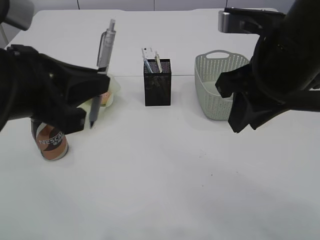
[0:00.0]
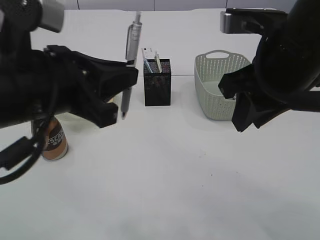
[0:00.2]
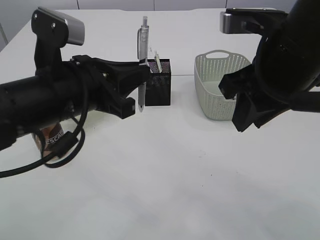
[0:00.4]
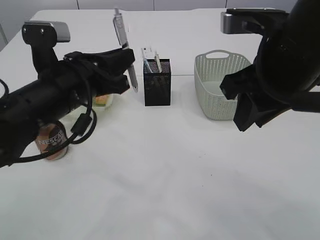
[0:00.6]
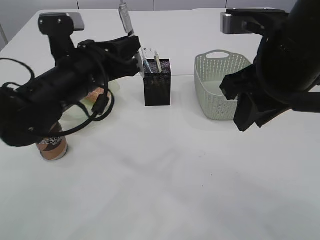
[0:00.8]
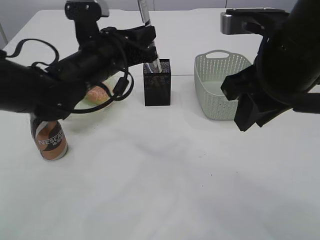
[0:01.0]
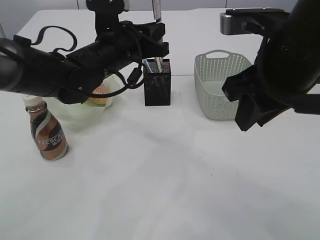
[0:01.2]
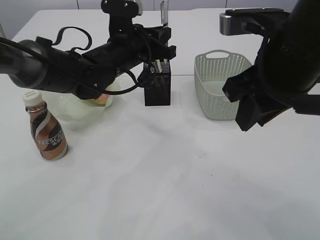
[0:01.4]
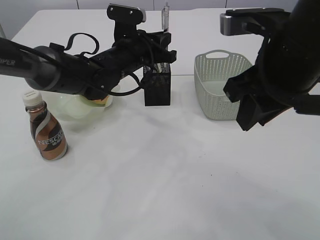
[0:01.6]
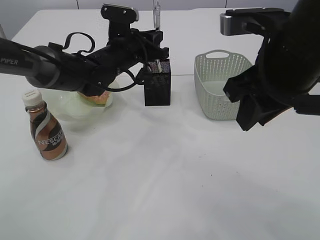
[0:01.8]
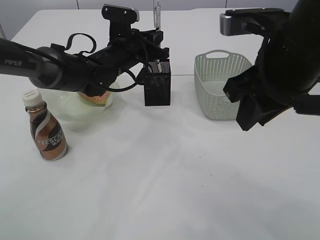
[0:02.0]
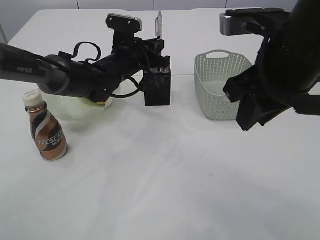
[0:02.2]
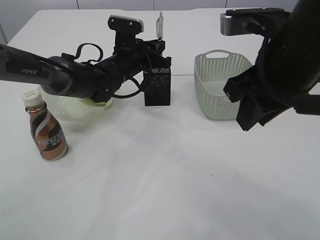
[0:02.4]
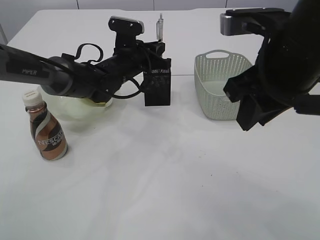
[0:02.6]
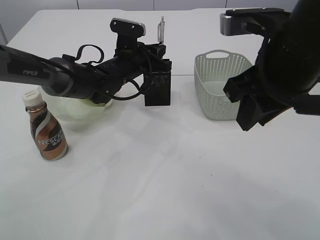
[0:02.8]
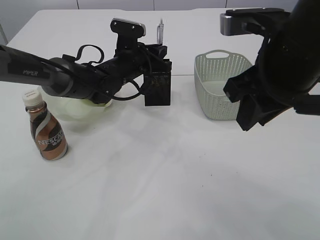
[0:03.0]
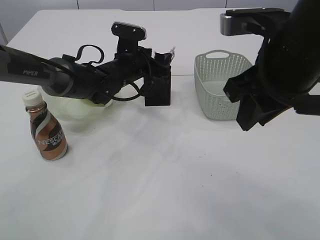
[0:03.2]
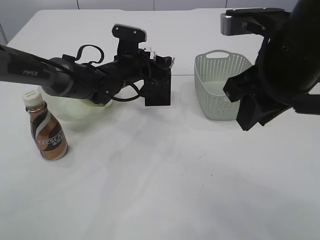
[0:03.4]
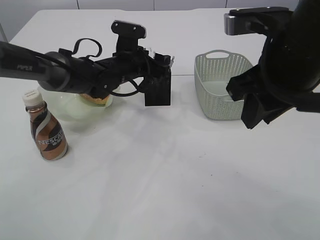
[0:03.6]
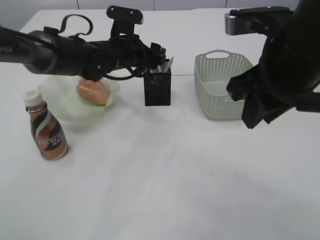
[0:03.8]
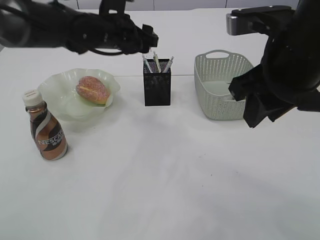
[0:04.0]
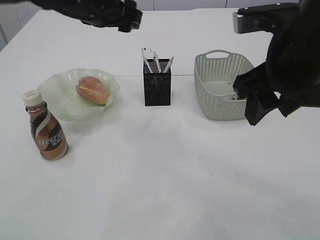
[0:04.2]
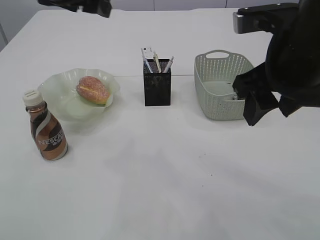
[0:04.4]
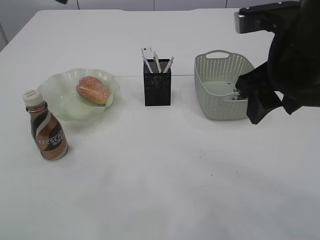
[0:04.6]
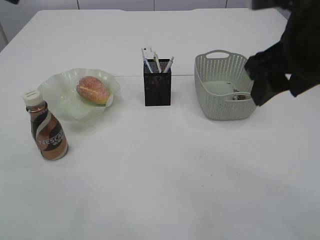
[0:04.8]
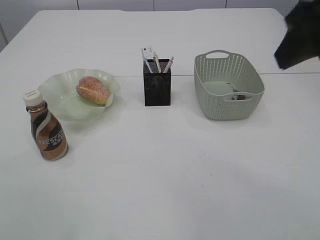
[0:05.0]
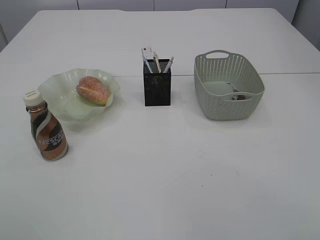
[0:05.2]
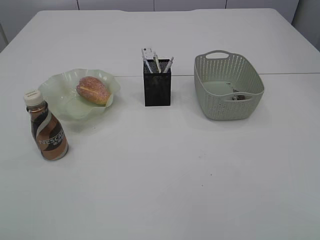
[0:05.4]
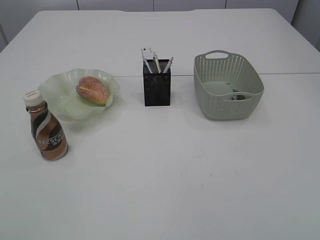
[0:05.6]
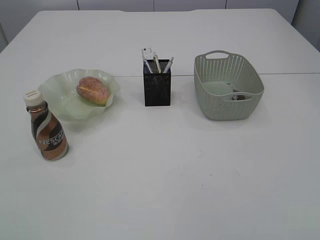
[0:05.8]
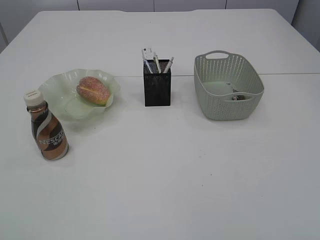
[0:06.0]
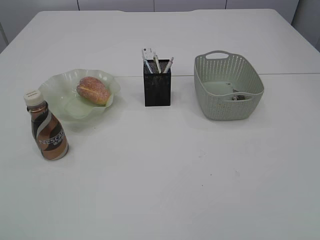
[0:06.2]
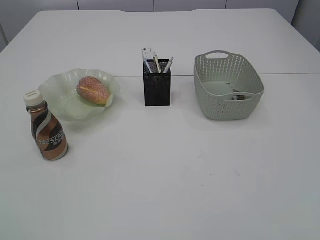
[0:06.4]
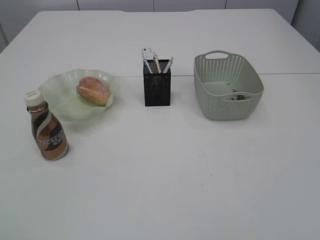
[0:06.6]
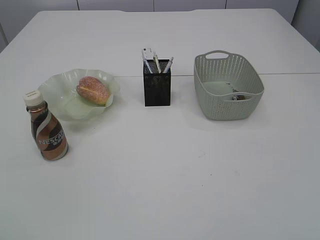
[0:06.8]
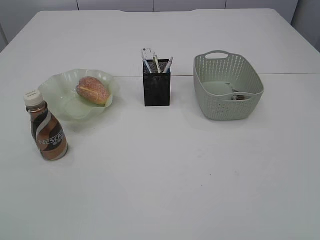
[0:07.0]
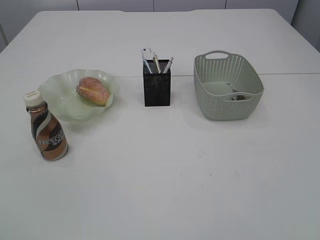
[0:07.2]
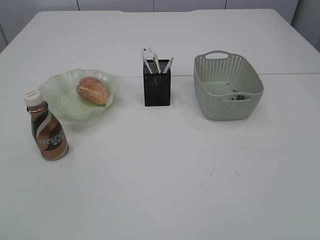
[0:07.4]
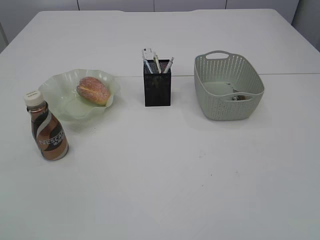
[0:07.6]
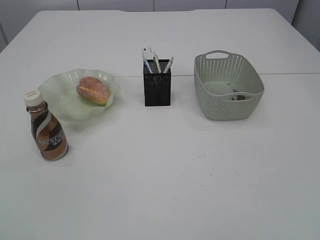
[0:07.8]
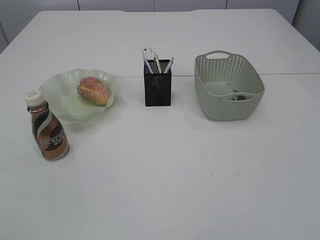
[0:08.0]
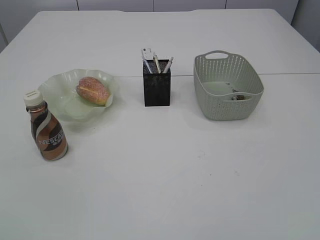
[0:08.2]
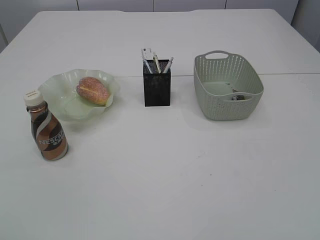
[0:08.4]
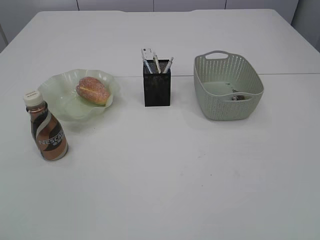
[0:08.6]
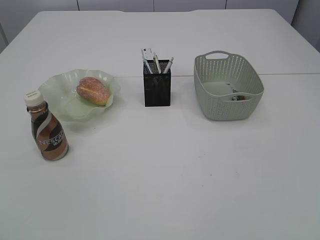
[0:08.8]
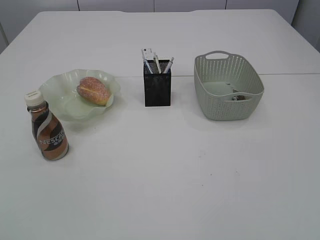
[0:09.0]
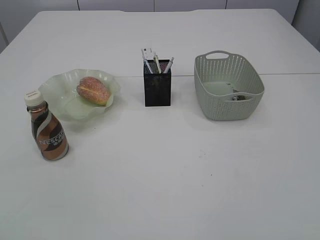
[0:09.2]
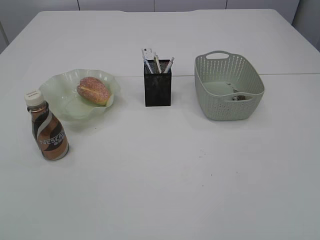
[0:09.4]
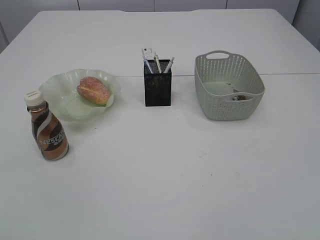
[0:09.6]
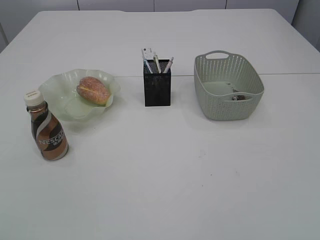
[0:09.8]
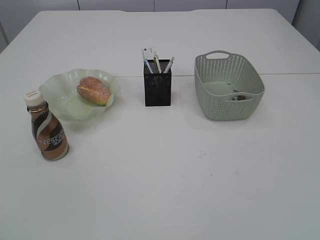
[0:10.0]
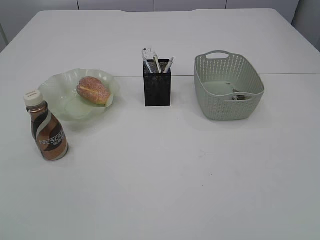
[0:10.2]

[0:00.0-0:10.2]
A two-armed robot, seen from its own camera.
Step, 0:00.0 to 0:04.2: Place the pen into the pen holder.
0:00.0 to 0:01.4: The left gripper travels forward by some 25 cm.
0:01.4 to 0:03.0: The left gripper shifts approximately 10 cm downward and forward.
0:03.0 to 0:04.4: The right gripper opens; the left gripper is displaced upward and backward by some 20 cm, and opens.
0:04.4 to 0:05.8: The right gripper shifts approximately 25 cm backward and to the right; the left gripper moves backward, to the left and upward, roughly 35 cm.
0:08.8 to 0:10.2: Neither gripper changes place.

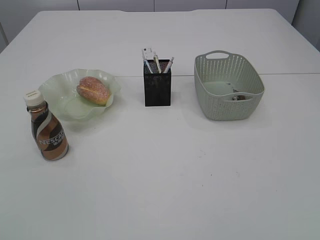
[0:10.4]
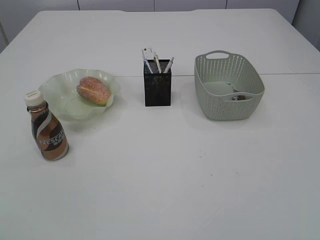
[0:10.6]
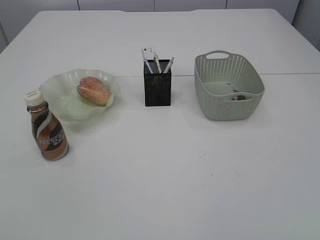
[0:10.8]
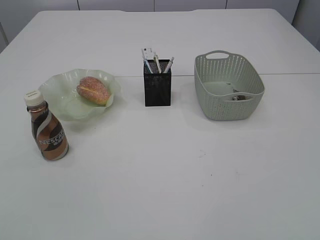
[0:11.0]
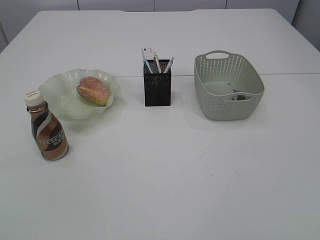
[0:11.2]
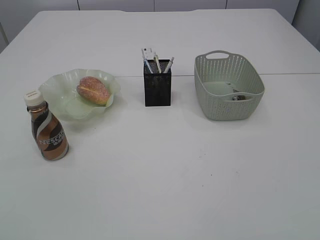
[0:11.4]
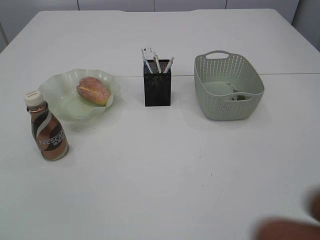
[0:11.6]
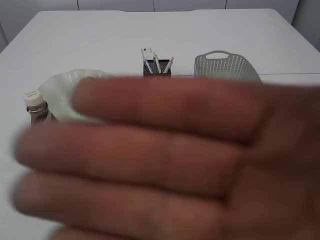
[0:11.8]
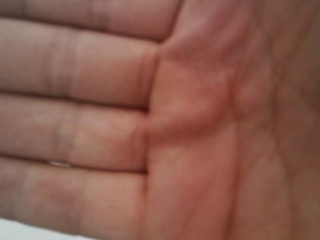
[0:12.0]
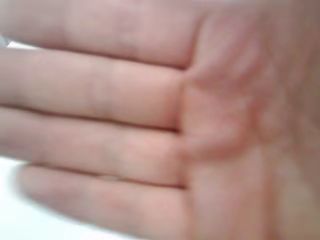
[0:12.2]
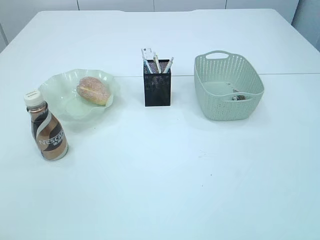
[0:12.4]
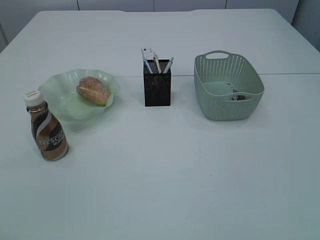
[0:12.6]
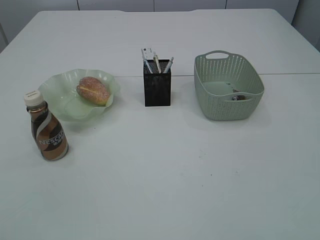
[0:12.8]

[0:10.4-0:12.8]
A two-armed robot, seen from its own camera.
0:10.4 to 0:12.8: Neither gripper changes place.

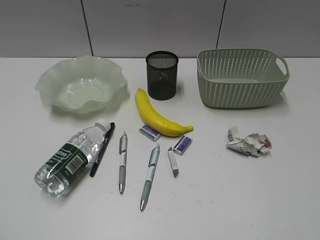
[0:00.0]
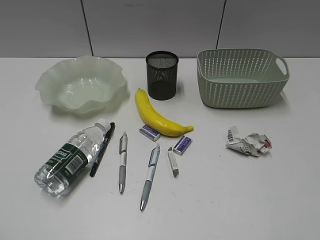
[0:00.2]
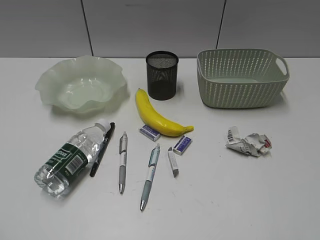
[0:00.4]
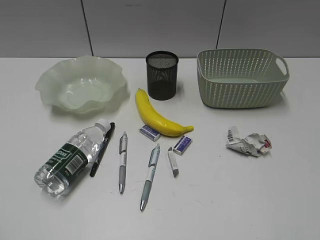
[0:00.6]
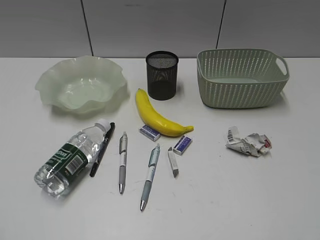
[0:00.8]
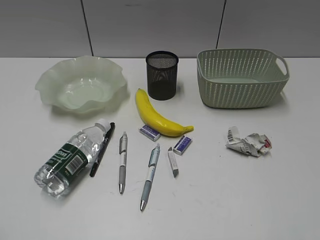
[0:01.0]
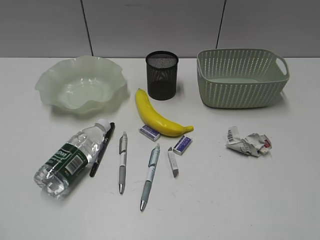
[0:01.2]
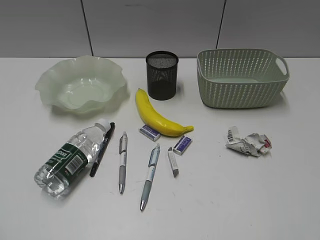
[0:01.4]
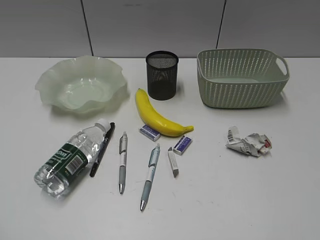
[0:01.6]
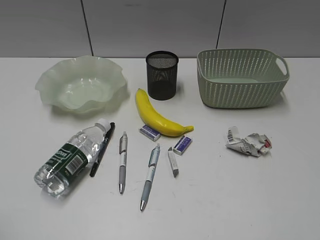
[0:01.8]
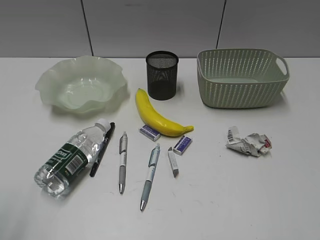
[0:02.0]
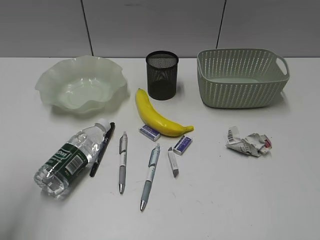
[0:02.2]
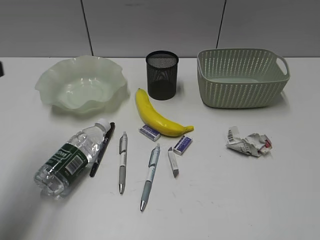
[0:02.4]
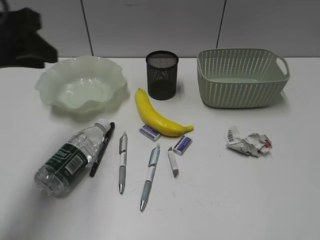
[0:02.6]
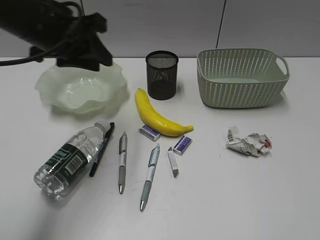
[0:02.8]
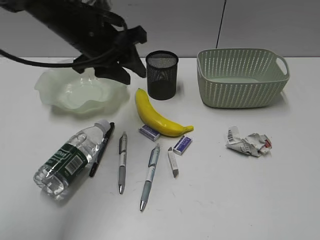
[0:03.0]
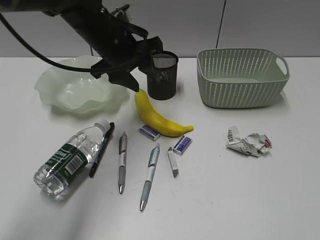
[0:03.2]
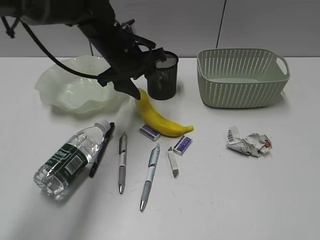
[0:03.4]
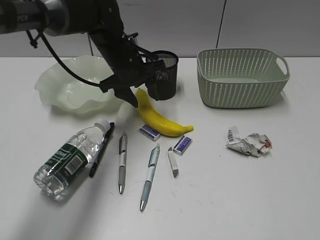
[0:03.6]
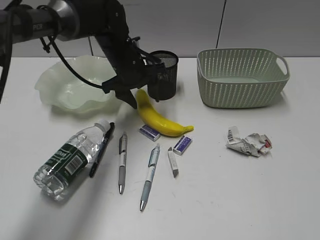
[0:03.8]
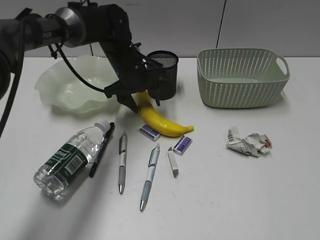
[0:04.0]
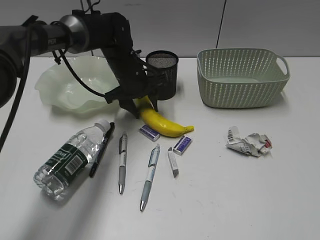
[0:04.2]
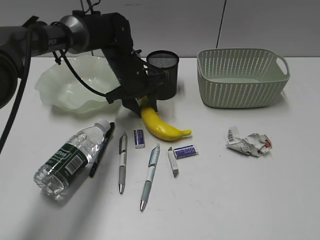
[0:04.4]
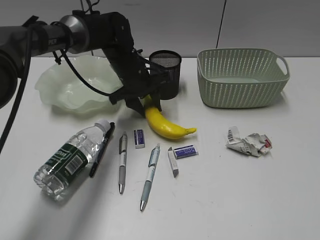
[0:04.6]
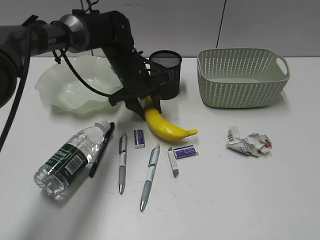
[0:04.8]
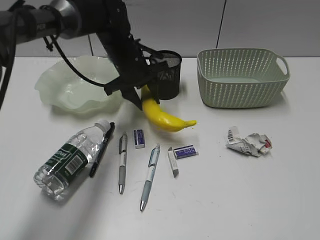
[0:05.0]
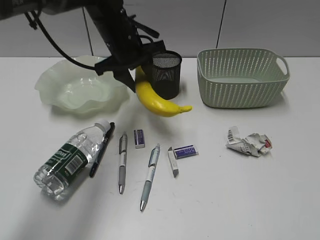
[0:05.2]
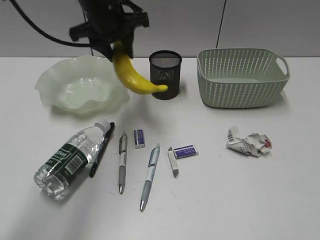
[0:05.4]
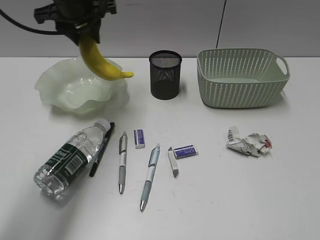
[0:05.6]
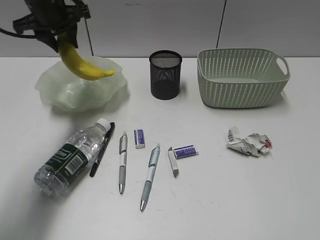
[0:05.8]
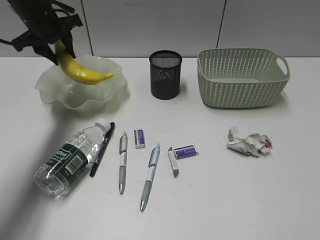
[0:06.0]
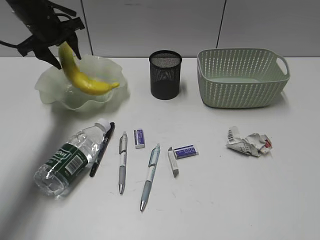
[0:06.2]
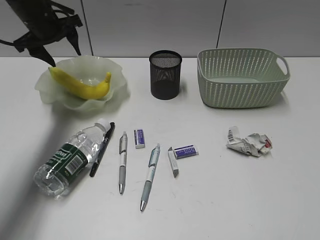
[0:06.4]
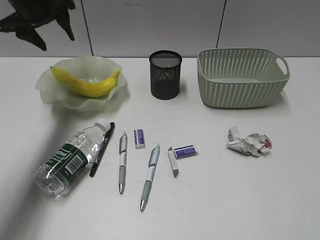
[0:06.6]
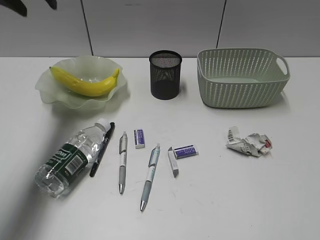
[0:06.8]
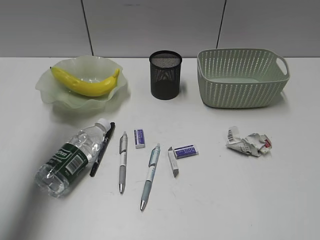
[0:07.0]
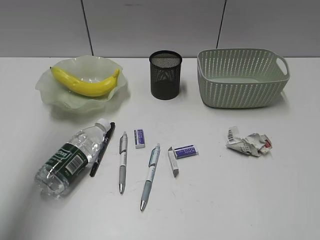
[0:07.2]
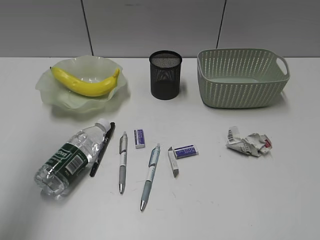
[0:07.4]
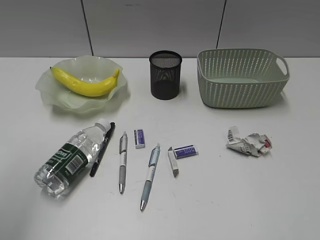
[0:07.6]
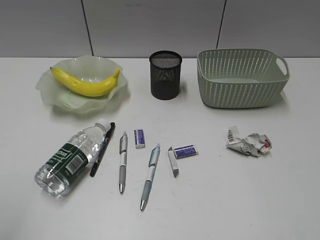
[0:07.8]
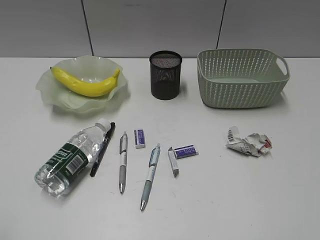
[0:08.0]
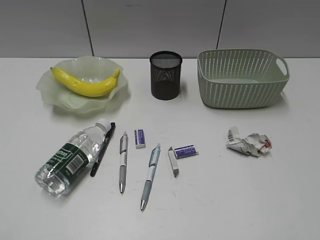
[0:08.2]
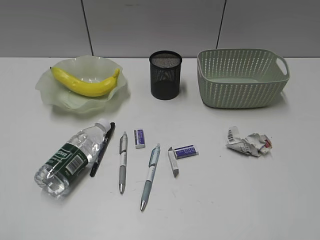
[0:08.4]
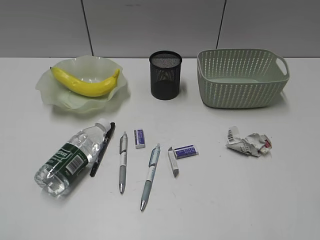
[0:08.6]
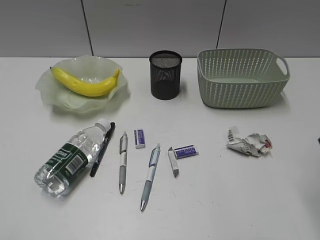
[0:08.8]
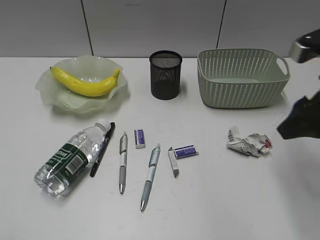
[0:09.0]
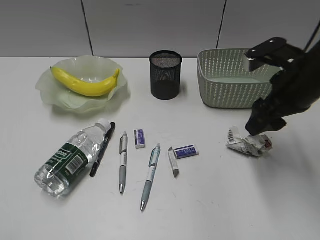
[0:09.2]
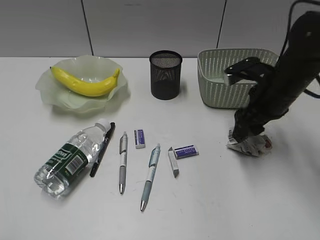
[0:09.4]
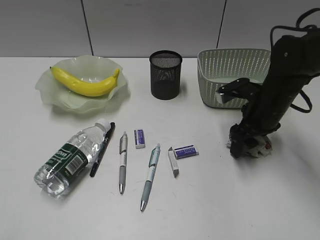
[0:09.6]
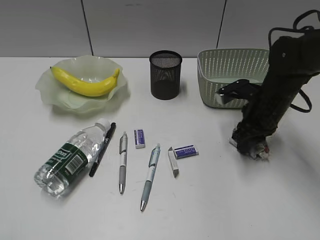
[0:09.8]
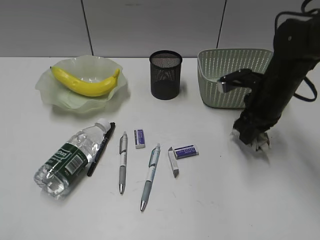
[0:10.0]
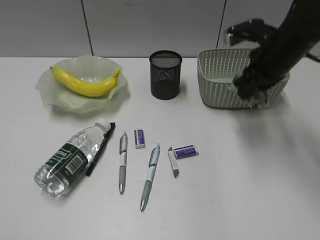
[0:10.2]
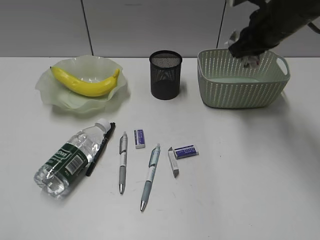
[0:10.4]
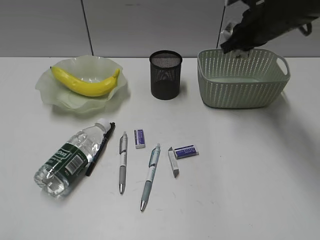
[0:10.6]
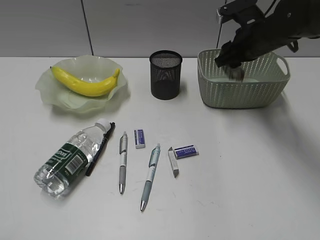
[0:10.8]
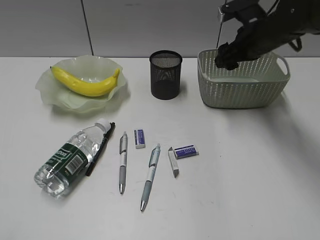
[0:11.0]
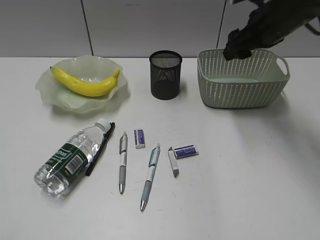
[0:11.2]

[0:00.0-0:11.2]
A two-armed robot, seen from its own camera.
Step, 0:01.6 to 0:04.2: Grasp the banana with left gripper.
Step, 0:04.4 to 0:06.2: Place the banana in the plate with left gripper.
Step, 0:06.4 to 0:09.8: Grasp the waste paper with right gripper.
Step, 0:10.0 to 0:11.0: Place the waste paper in the basket with right gripper.
0:01.6 to 0:03.2: The left gripper is displaced forward and to the right by roughly 50 cm, and opens up.
0:03.2 to 0:04.8: The left gripper shifts roughly 10 cm downward and forward.
0:04.8 to 0:06.4: The left gripper is displaced to the left and upward by approximately 20 cm, and opens up.
0:06.4 to 0:08.0: The left gripper heads backward, covering approximately 50 cm.
0:08.0 to 0:09.6: The right gripper shifts some 40 cm forward and downward, and opens its fingers.
0:09.6 to 0:11.2: The right gripper goes up and down, about 15 cm each way, reversing 2 times, and closes, then reopens.
